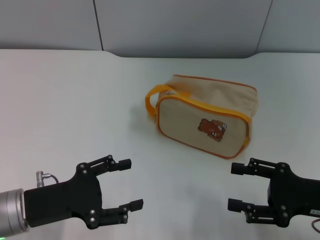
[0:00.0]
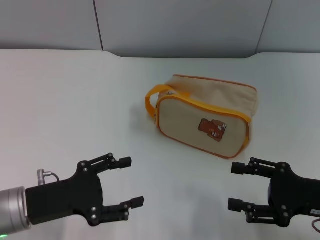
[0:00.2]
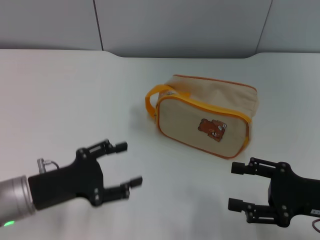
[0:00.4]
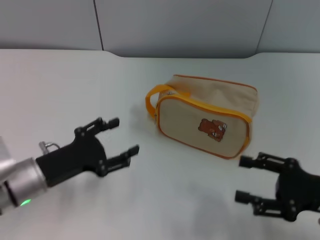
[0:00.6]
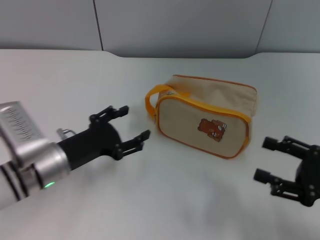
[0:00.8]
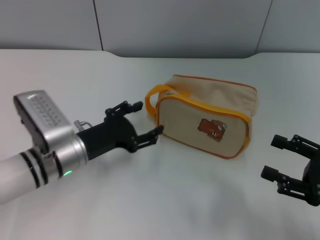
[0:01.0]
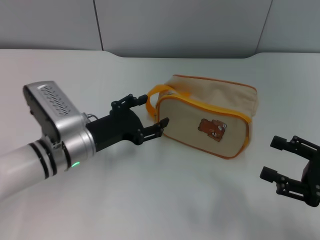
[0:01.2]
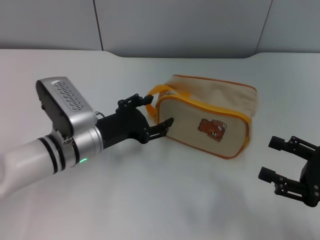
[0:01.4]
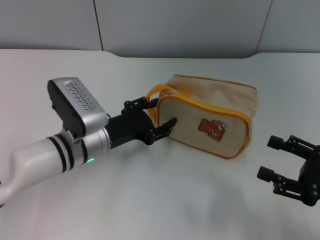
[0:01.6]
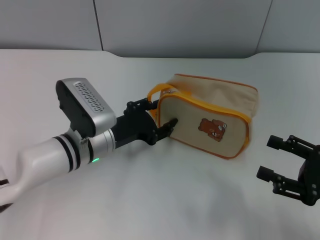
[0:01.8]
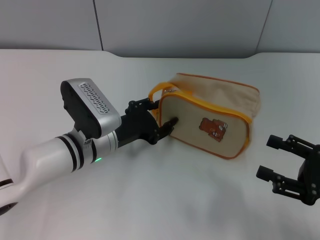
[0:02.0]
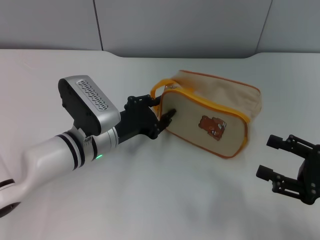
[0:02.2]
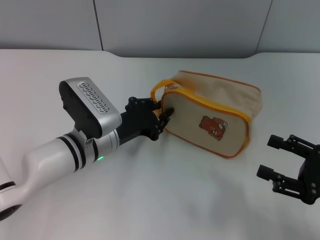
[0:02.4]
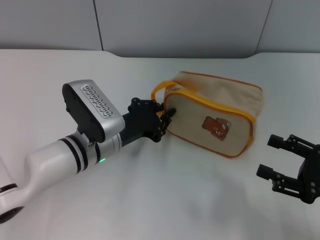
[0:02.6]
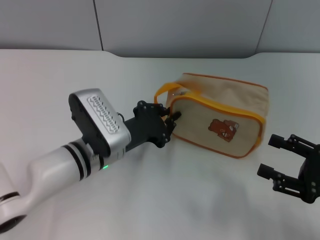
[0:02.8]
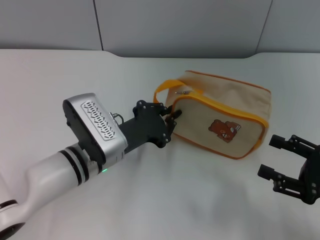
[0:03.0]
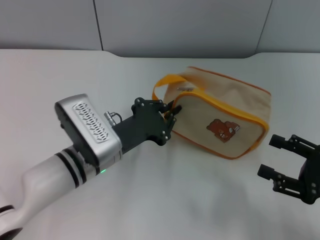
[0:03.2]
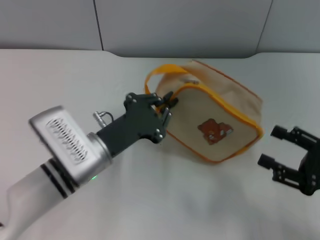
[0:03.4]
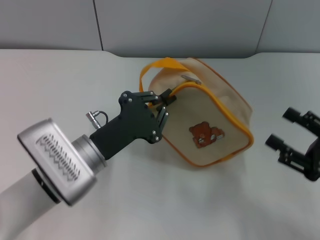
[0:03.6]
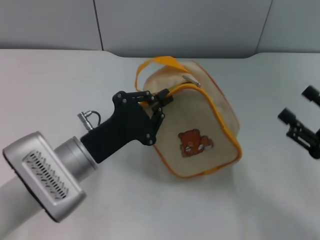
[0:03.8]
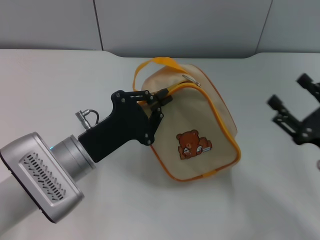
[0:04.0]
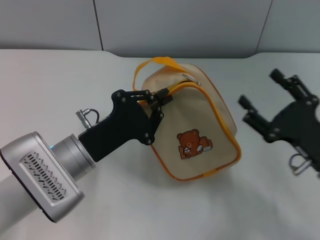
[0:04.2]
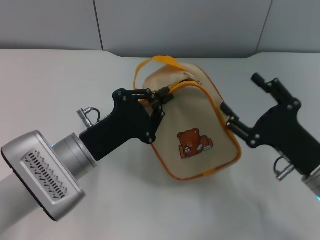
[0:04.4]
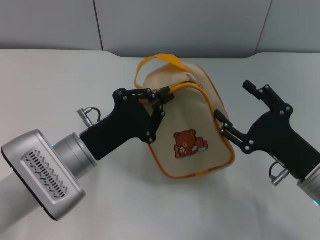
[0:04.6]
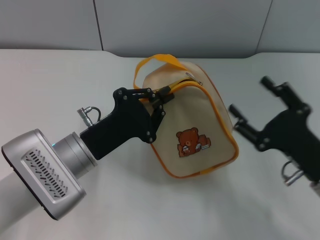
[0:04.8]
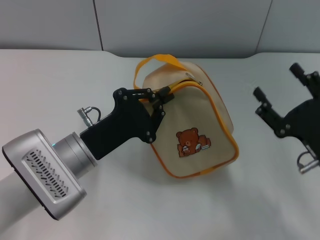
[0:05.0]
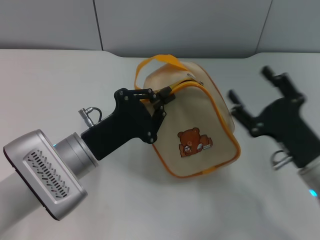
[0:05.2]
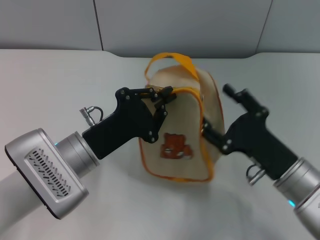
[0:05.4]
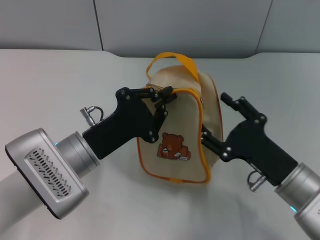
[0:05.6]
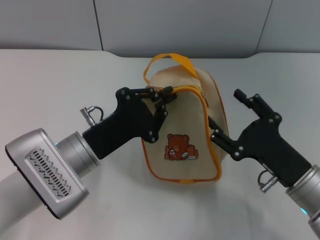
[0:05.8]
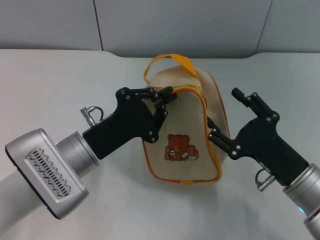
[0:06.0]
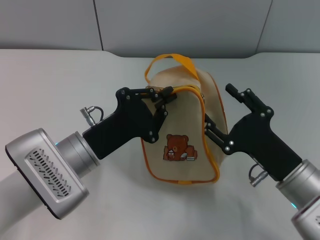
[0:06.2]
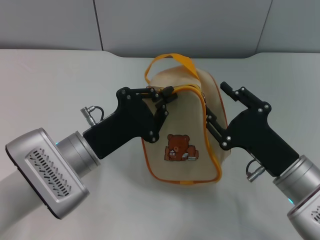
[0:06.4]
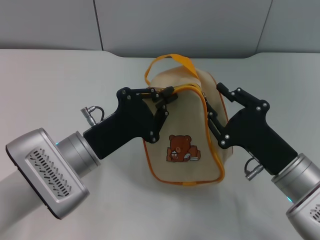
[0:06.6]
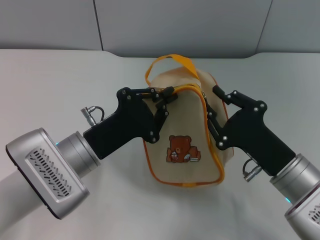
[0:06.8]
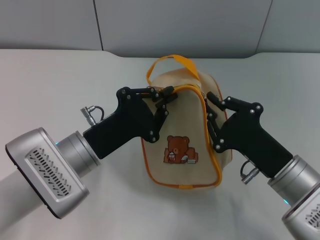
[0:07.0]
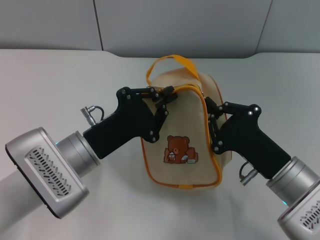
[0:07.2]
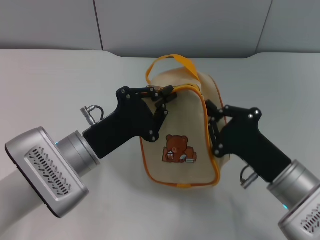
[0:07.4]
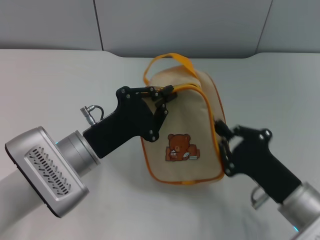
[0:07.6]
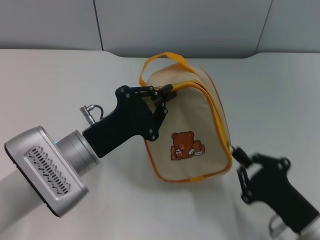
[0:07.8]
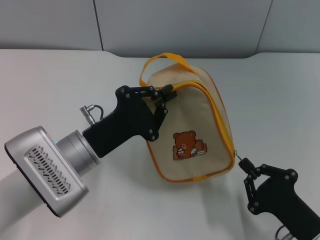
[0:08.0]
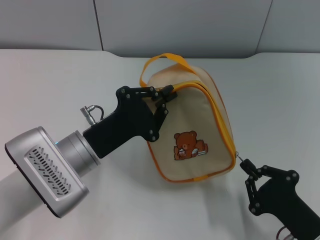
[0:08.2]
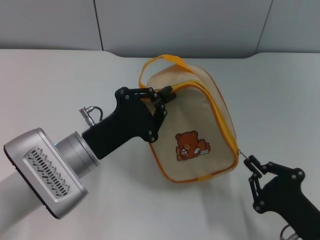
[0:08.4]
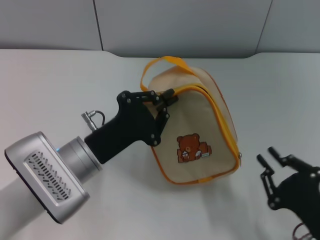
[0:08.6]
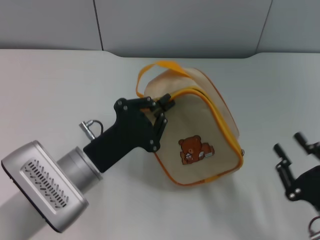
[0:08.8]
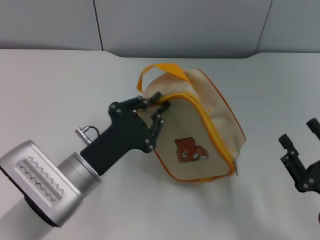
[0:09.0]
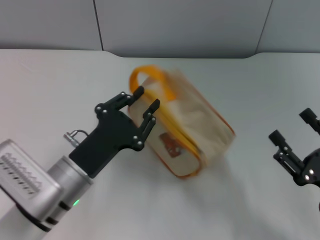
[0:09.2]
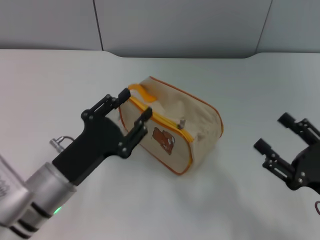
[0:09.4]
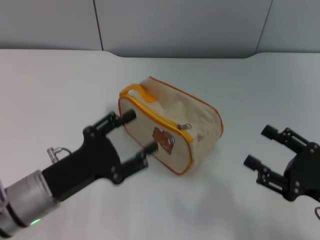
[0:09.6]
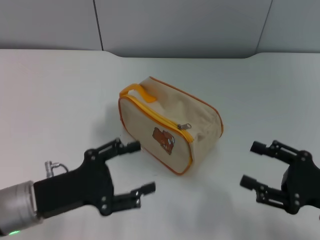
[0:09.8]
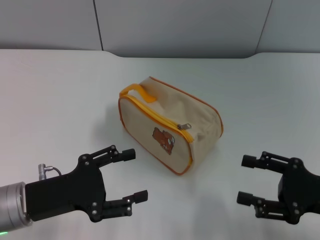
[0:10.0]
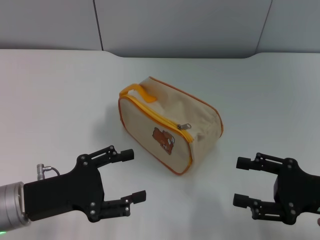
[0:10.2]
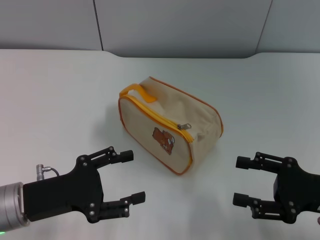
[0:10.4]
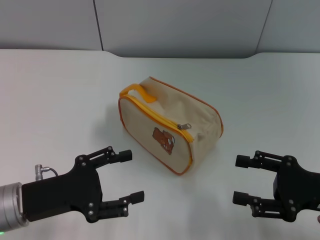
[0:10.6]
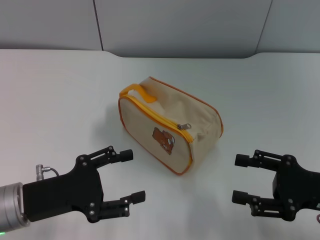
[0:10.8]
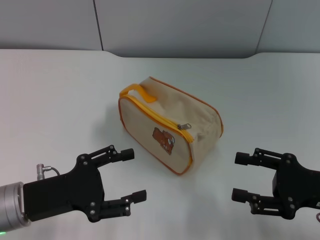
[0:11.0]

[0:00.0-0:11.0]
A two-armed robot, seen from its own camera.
Step, 0:00.0 to 0:03.2: Pick up the bag with left gripper.
Step, 0:03.4 to 0:08.4: Unzip the zipper of bag with right gripper.
Step, 0:08.6 to 0:09.2: Place the bag on the table with left gripper.
0:00.0 to 0:01.6: The left gripper shifts roughly 15 cm forward and to the right.
0:01.6 to 0:03.2: The left gripper closes.
0:03.2 to 0:04.8: The right gripper goes some 10 cm to the left.
0:04.8 to 0:06.2: There are only small adjustments of the grippers.
0:06.2 to 0:07.8: The right gripper goes about 5 cm backward, and closes its fingers.
0:07.8 to 0:09.4: The left gripper shifts by some 5 cm. Meanwhile the right gripper moves to the right, approximately 5 cm, and opens.
0:09.4 to 0:11.0: The right gripper moves about 5 cm. The left gripper heads to the left, covering about 5 cm, and opens up.
